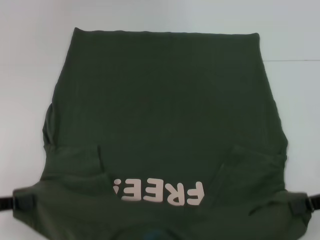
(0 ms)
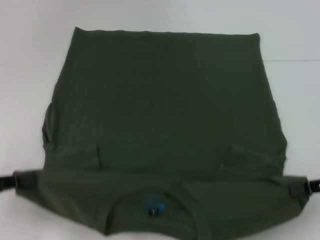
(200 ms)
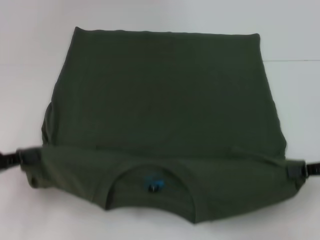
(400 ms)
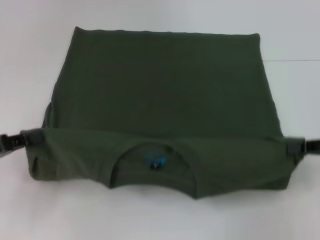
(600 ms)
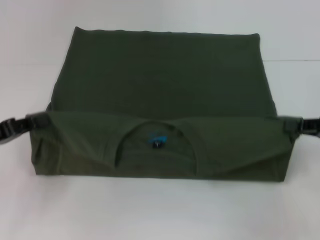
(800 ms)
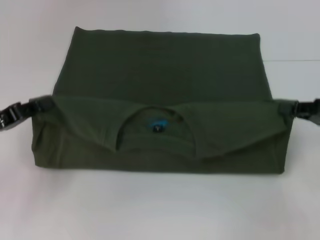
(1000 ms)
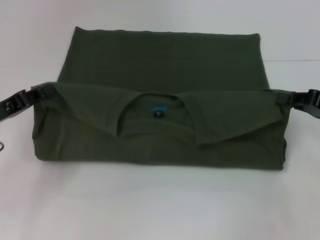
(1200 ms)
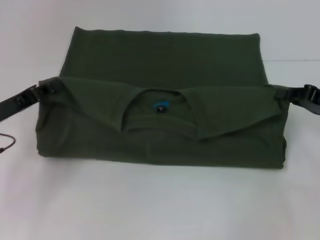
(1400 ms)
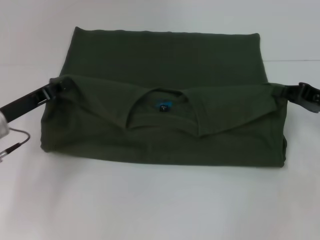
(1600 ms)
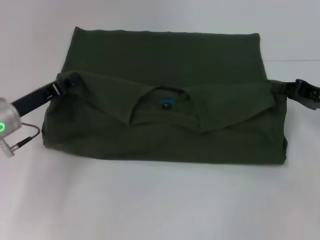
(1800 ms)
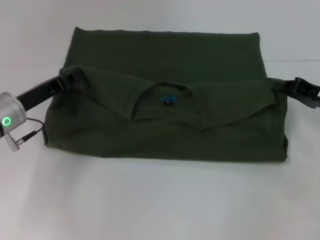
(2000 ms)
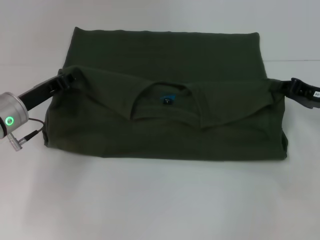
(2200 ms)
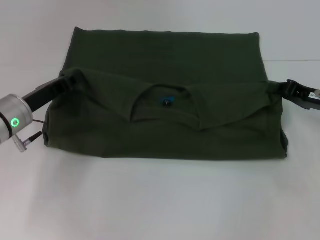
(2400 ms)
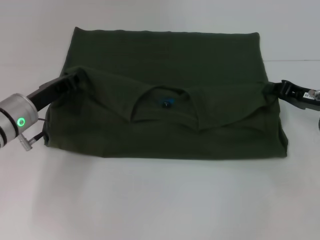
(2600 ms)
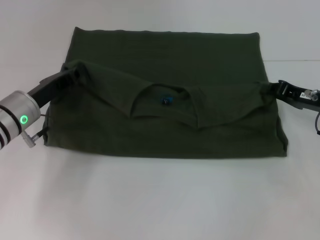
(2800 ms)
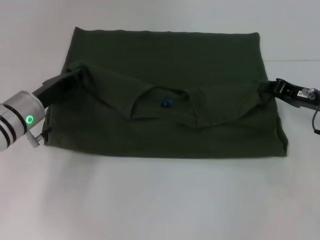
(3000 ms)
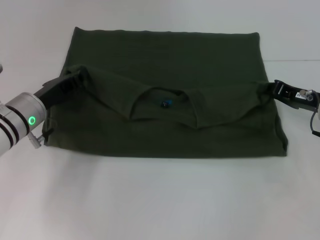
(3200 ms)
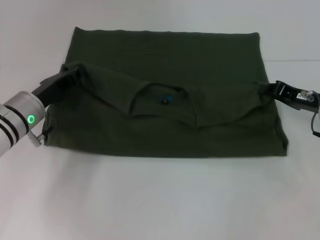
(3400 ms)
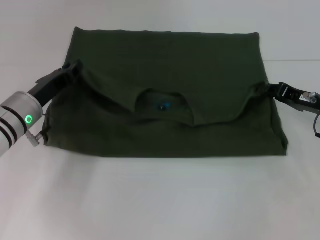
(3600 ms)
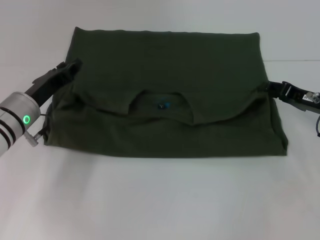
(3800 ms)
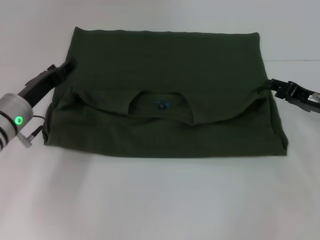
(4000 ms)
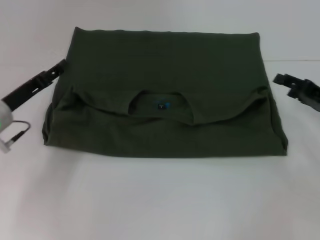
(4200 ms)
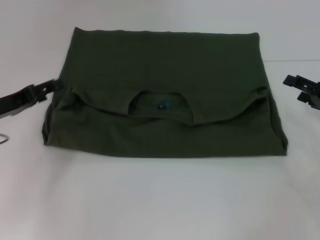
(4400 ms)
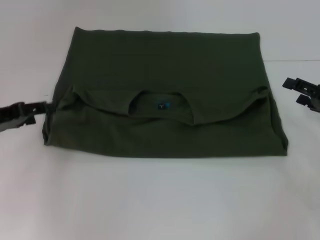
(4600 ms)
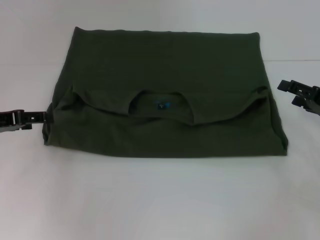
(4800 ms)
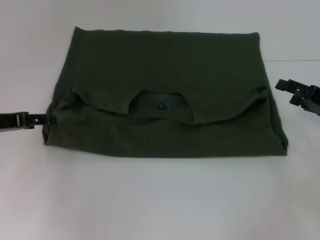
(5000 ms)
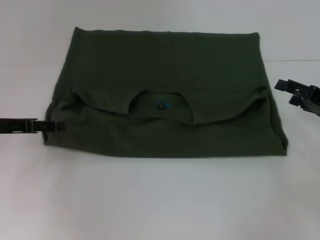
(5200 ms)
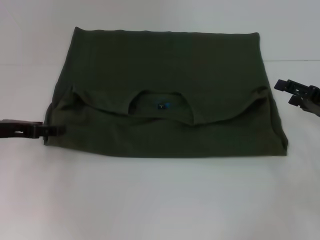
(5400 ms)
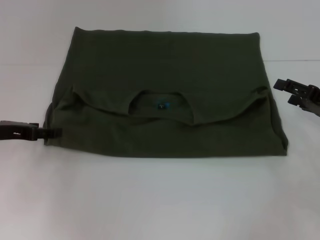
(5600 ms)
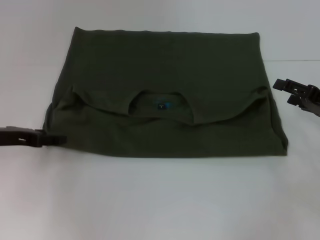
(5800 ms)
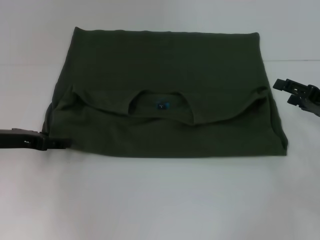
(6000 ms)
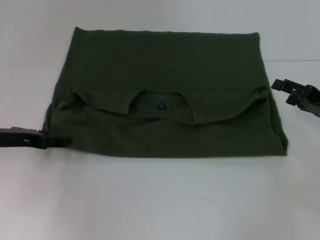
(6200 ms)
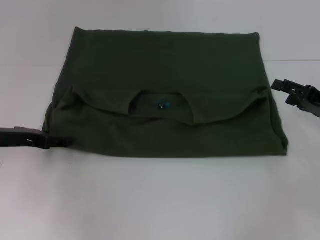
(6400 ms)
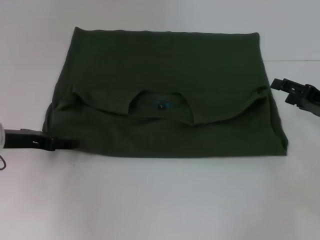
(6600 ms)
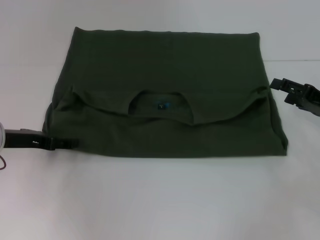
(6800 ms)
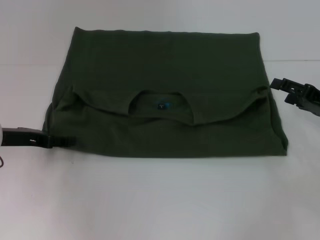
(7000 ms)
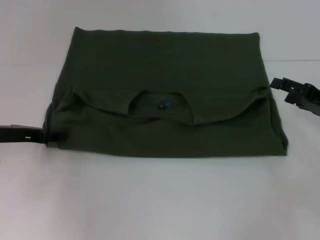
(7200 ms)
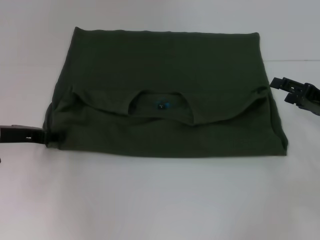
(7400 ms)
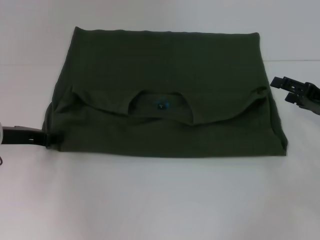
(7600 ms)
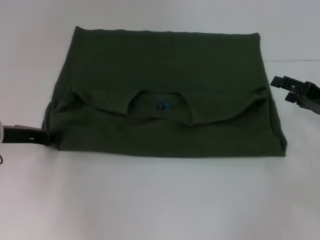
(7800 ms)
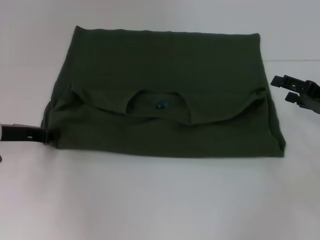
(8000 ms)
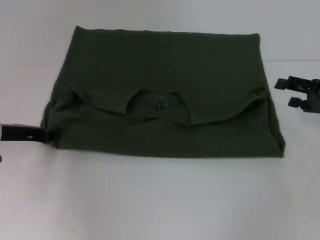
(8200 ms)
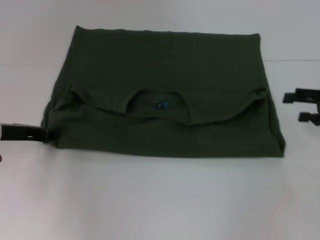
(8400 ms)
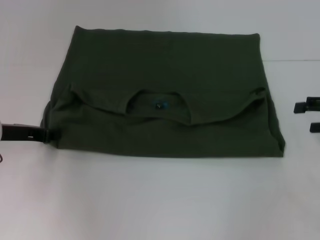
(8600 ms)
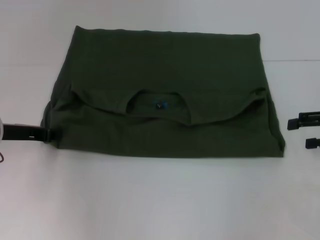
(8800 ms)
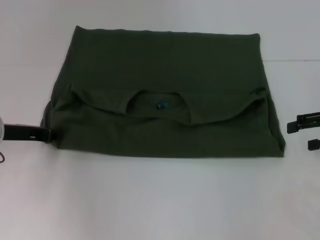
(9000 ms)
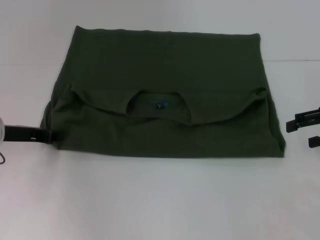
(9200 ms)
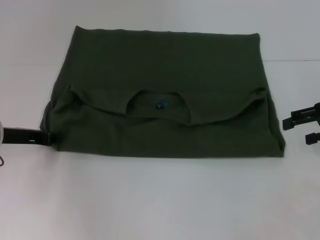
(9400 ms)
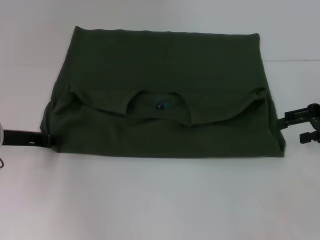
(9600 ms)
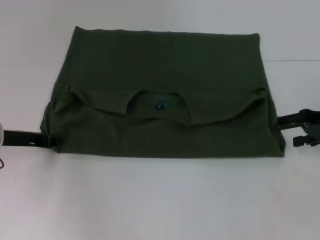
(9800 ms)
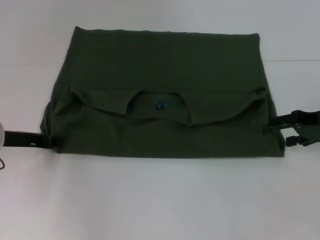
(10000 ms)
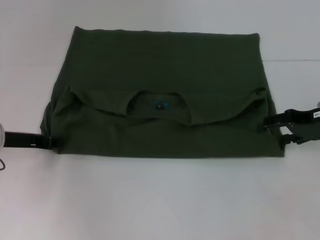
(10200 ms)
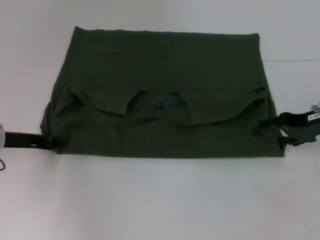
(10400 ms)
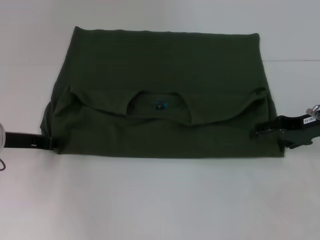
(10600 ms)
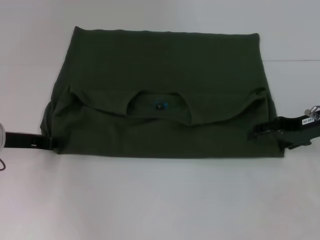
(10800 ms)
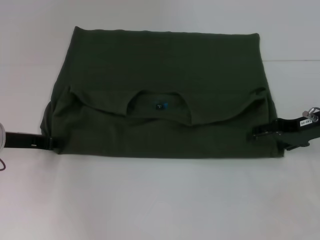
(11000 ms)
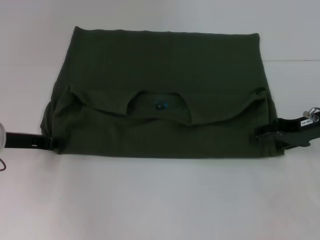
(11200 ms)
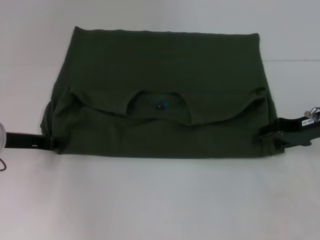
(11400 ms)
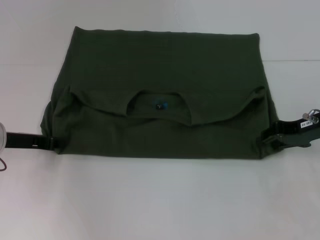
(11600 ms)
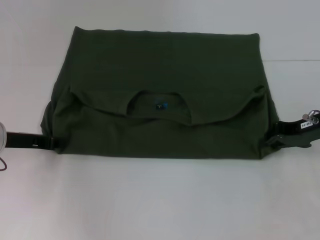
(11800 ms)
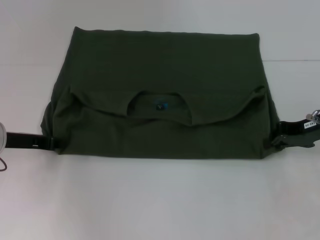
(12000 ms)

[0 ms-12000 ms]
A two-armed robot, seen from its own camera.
Step, 0 ms to 4200 ms: Fold the clothes with your left hand.
Step, 0 ms to 4200 ms: Fold the clothes with your right hand.
0 ms to 1600 ms: The right gripper goes roughly 10 cm forward, while the left gripper shifts some 15 cm forward and to the right.
1600 ms to 3000 ms: The left gripper shifts by approximately 5 cm.
3000 ms to 4400 ms: The right gripper heads to the right, covering approximately 5 cm, and opens; the left gripper goes approximately 5 cm to the left, and opens its fingers.
6000 ms to 7600 ms: The left gripper closes its fingers.
7600 ms to 9000 ms: The left gripper closes up; the right gripper goes roughly 5 cm upward.
9000 ms to 10400 ms: The right gripper travels to the left by some 5 cm.
10400 ms to 12000 ms: The right gripper closes its fingers.

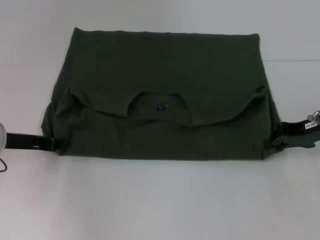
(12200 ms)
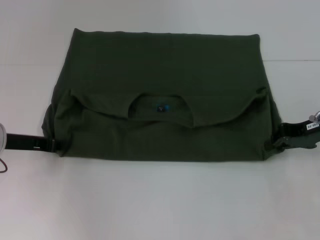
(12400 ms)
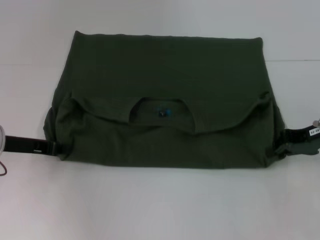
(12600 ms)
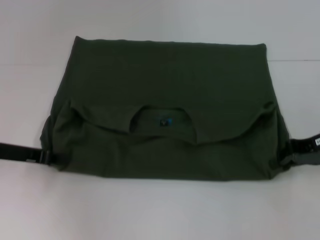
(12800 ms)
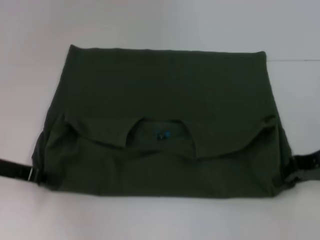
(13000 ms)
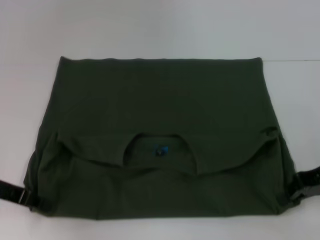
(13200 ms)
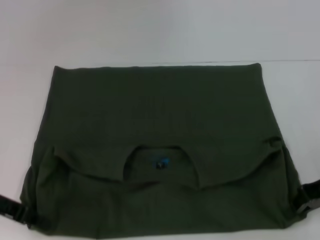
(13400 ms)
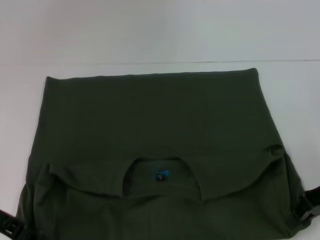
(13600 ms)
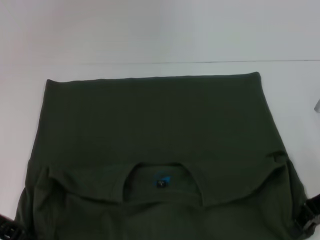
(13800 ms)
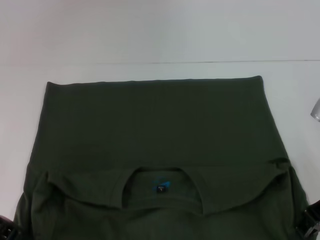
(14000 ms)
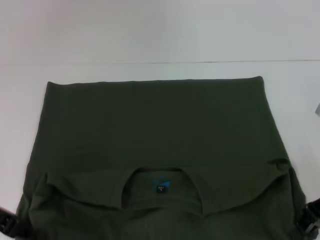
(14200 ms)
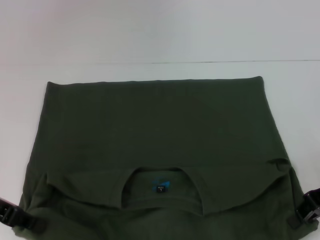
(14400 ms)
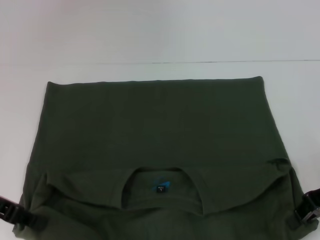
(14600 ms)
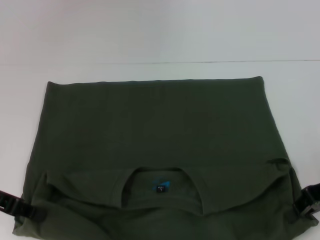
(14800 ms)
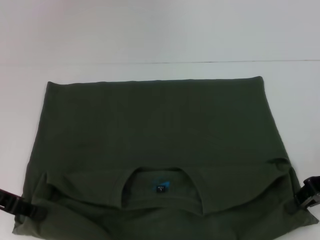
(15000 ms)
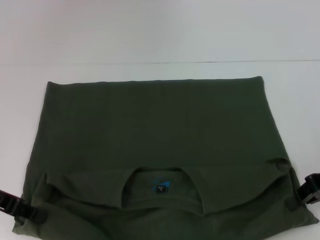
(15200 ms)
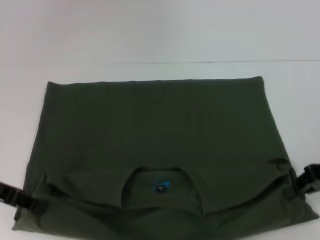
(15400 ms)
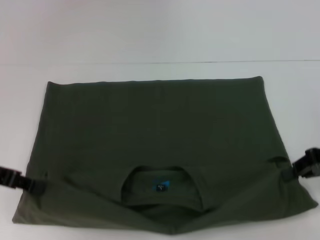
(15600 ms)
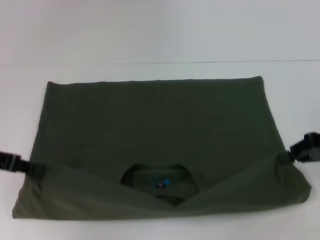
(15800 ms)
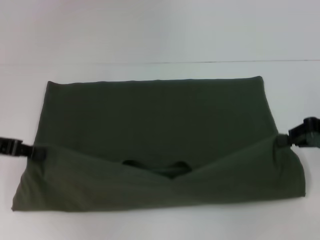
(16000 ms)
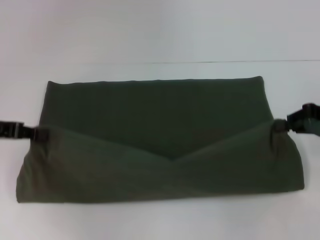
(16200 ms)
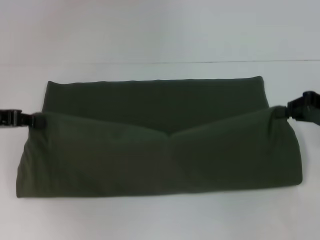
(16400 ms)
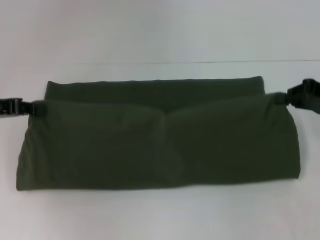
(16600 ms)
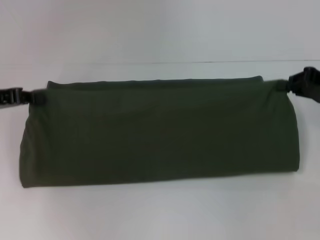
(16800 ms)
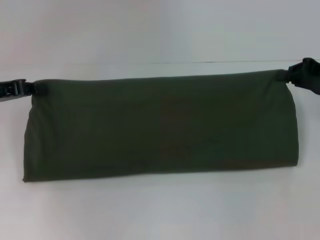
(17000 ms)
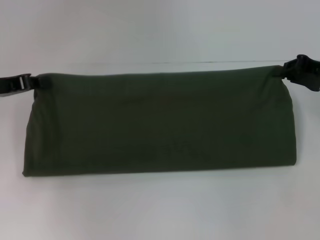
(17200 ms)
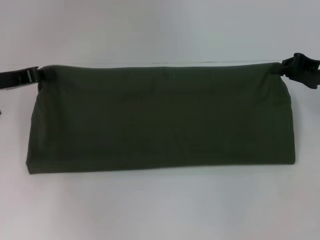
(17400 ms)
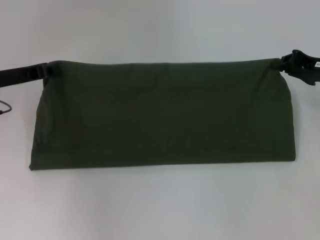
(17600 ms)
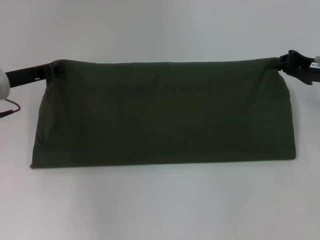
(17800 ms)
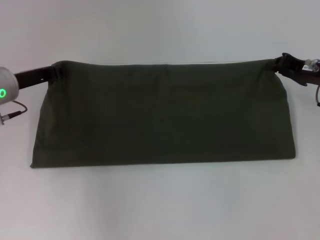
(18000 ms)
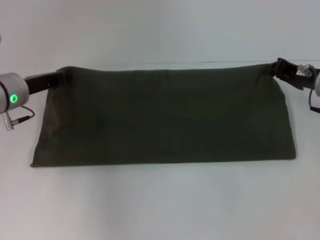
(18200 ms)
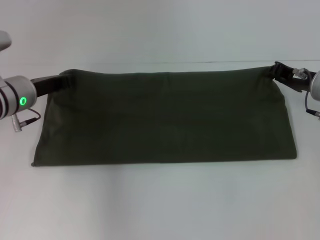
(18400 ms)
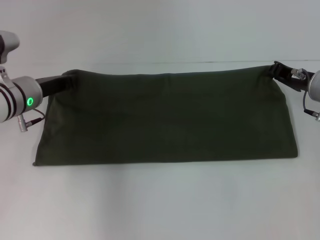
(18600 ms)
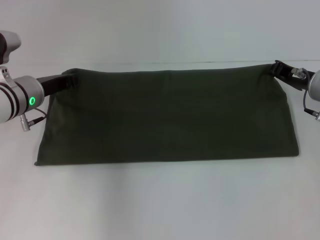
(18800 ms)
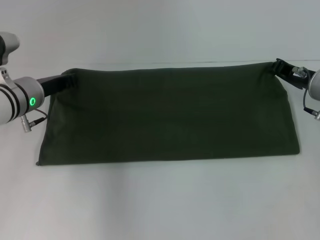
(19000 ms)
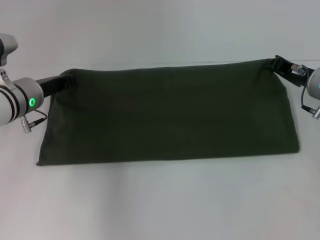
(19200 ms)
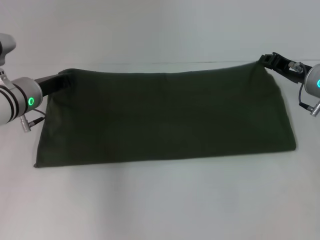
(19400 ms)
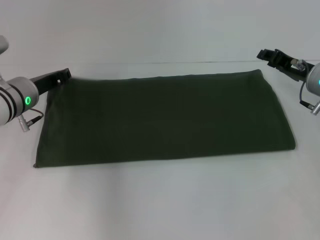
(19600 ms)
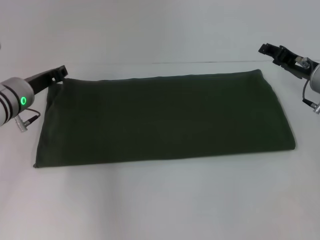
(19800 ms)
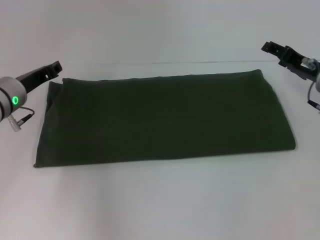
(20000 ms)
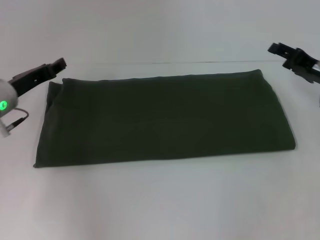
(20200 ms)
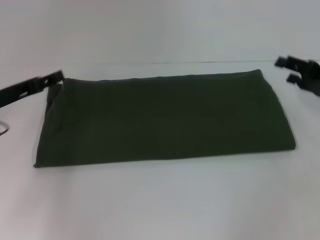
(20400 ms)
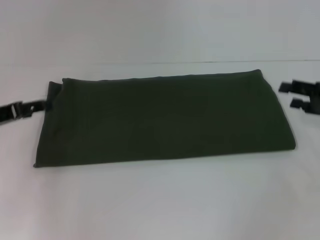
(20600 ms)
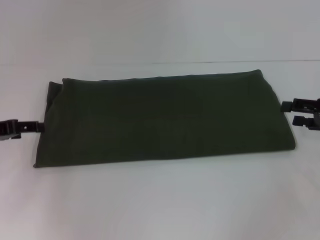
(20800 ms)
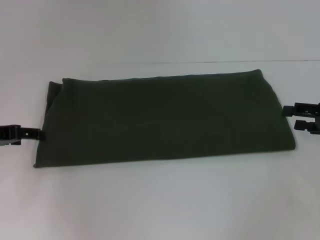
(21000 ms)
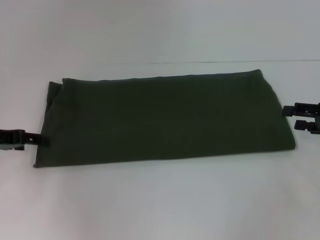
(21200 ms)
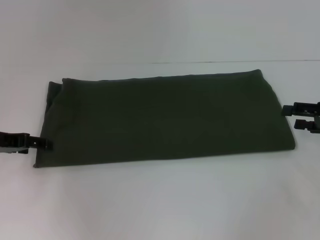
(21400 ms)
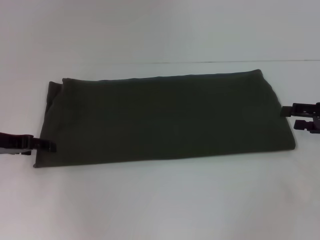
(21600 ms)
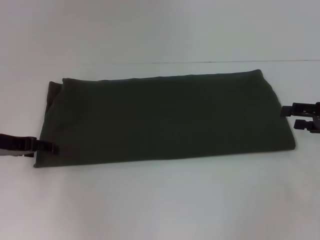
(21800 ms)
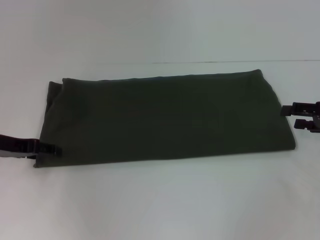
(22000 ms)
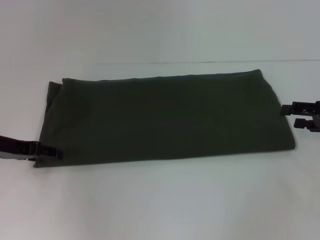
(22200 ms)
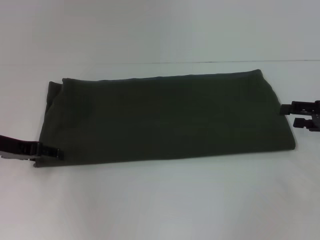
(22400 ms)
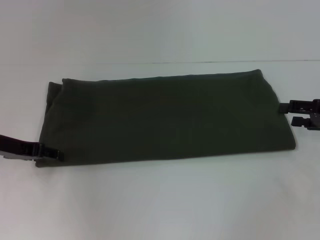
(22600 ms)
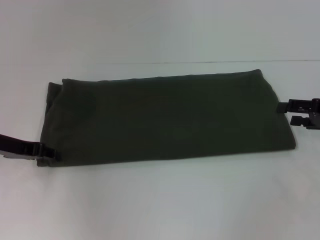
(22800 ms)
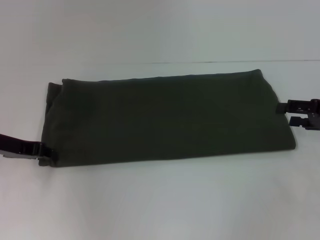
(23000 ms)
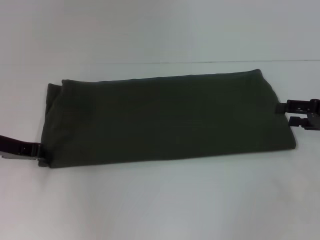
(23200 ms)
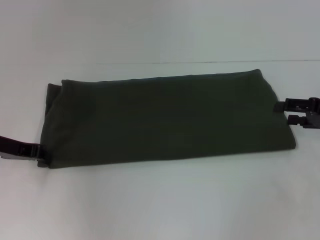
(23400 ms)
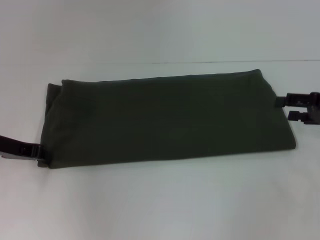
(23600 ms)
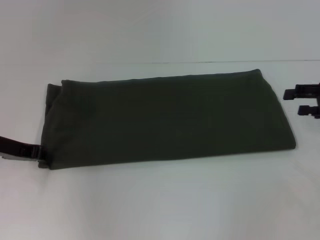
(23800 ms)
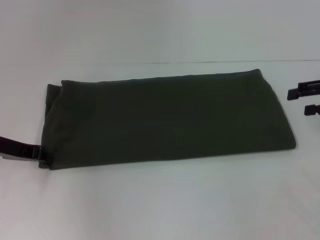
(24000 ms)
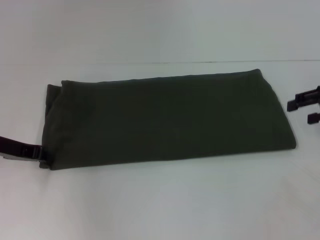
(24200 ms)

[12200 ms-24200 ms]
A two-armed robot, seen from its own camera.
Step, 13600 ms to 20200 ms: Fold the clothes with your right hand.
12200 ms to 13800 ms: Both grippers travel together backward, approximately 5 cm.
13800 ms to 15200 ms: There are only small adjustments of the grippers.
15200 ms to 16600 ms: The right gripper shifts by about 5 cm. Meanwhile the left gripper moves forward, approximately 5 cm.
16600 ms to 18200 ms: The right gripper shifts approximately 5 cm to the left. Meanwhile the left gripper moves to the right, forward and downward, about 10 cm.
18200 ms to 19800 ms: The right gripper opens its fingers.
19800 ms to 21200 ms: The left gripper shifts roughly 10 cm to the left and backward, and opens. The right gripper heads to the right and backward, covering roughly 10 cm.
21200 ms to 22600 ms: There are only small adjustments of the grippers.
22600 ms to 24200 ms: The left gripper closes up, while the right gripper moves upward, approximately 5 cm.
